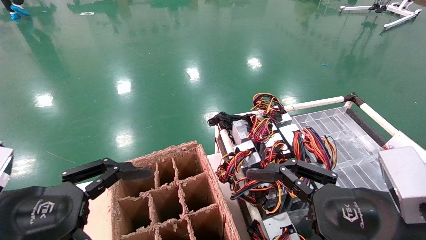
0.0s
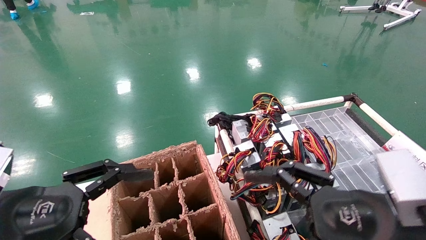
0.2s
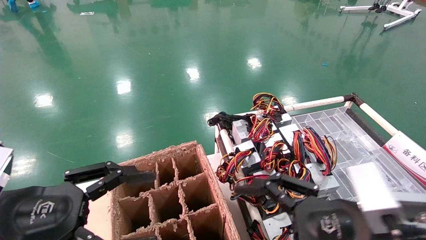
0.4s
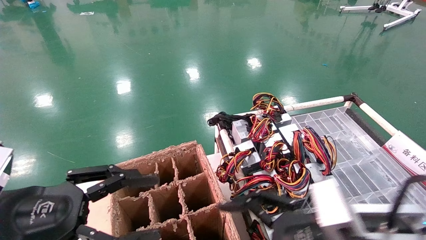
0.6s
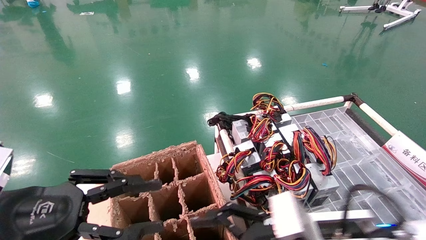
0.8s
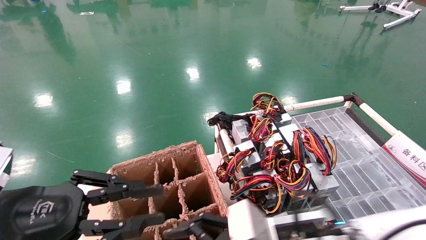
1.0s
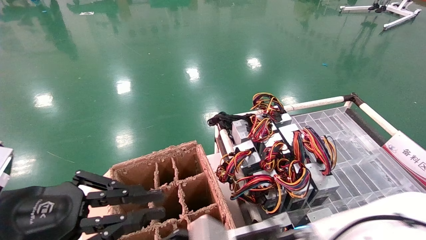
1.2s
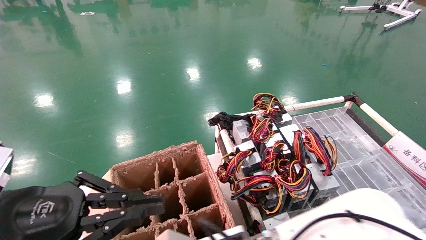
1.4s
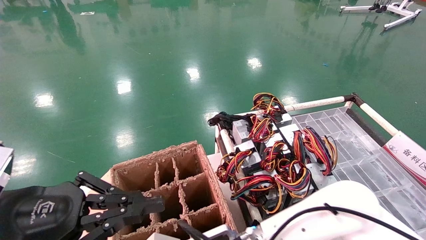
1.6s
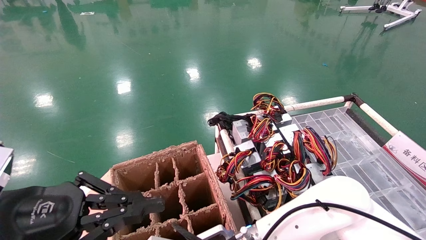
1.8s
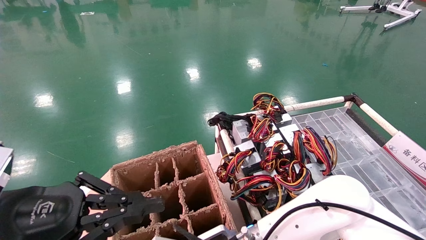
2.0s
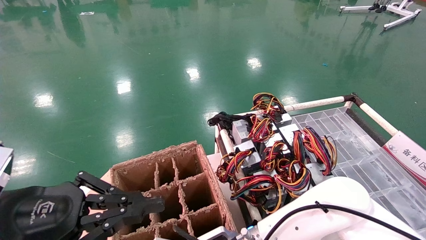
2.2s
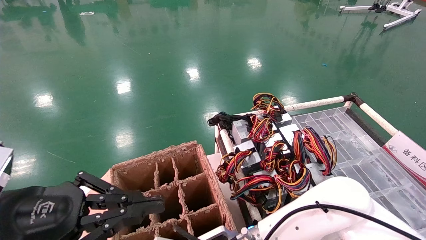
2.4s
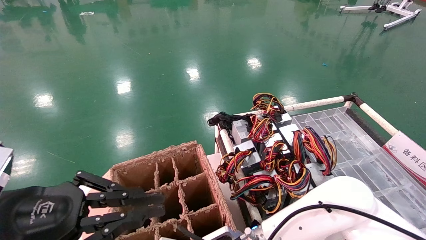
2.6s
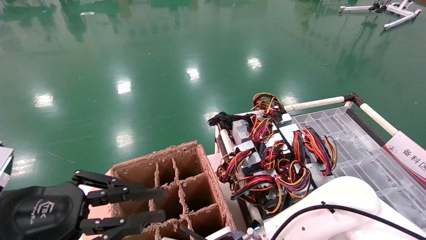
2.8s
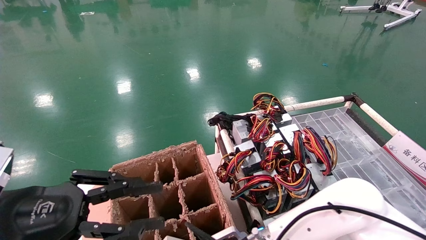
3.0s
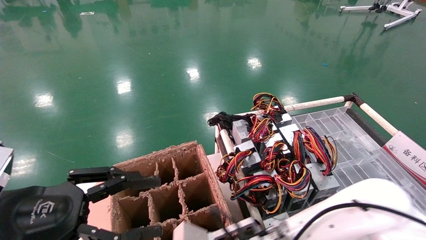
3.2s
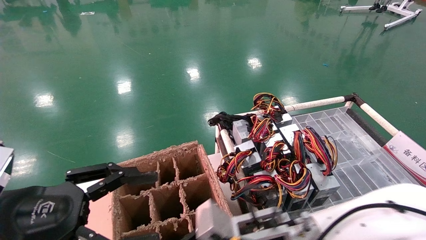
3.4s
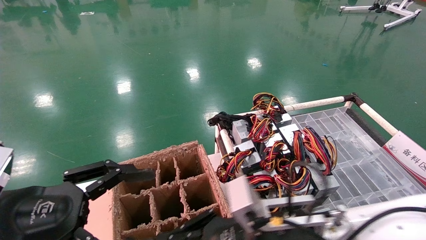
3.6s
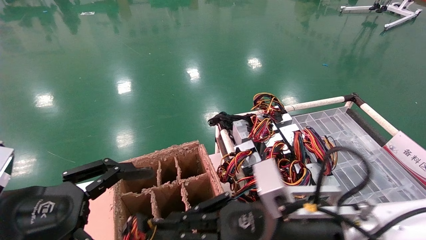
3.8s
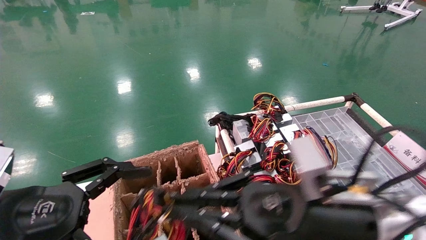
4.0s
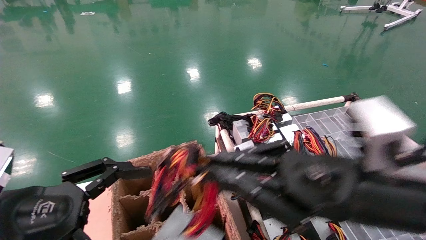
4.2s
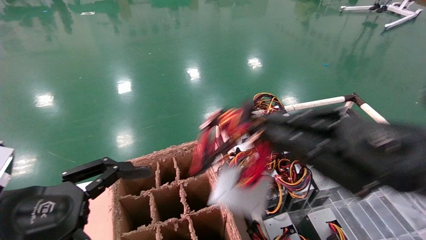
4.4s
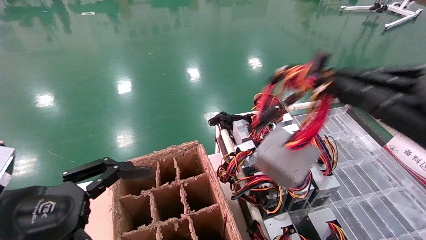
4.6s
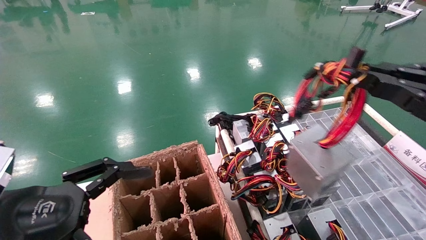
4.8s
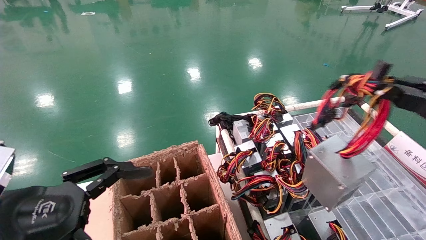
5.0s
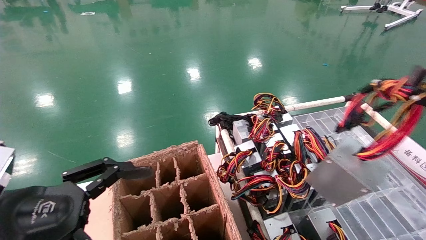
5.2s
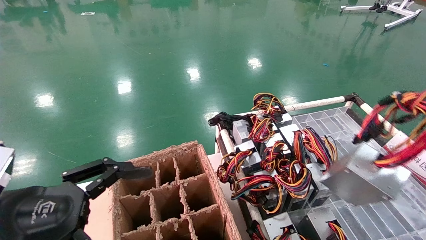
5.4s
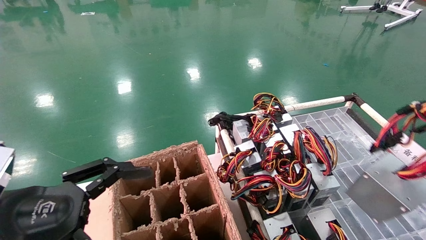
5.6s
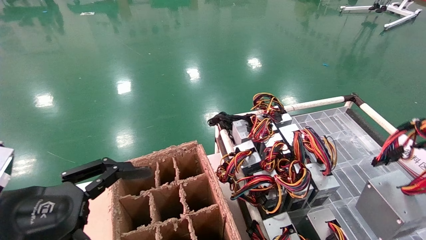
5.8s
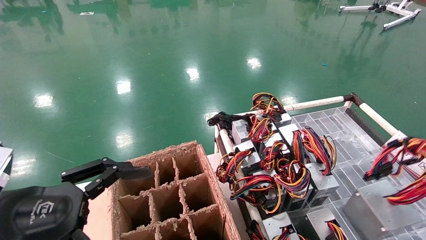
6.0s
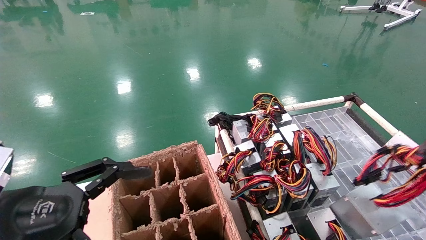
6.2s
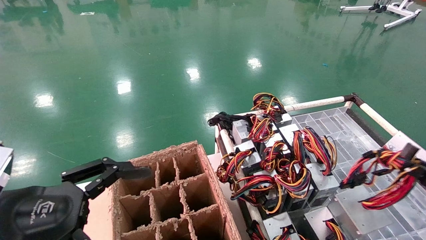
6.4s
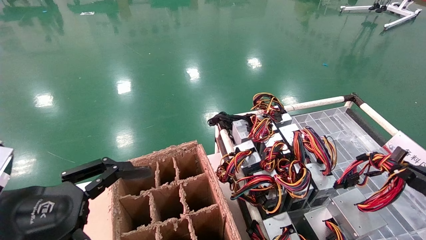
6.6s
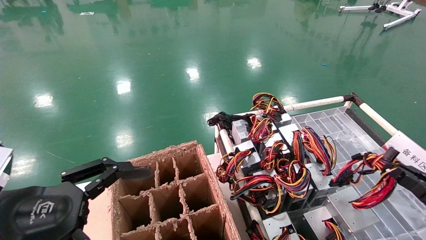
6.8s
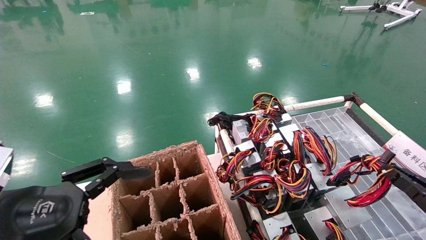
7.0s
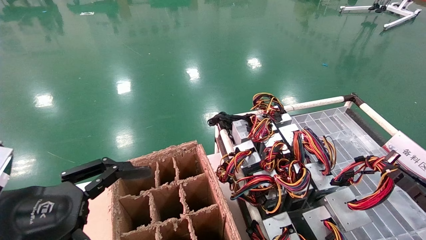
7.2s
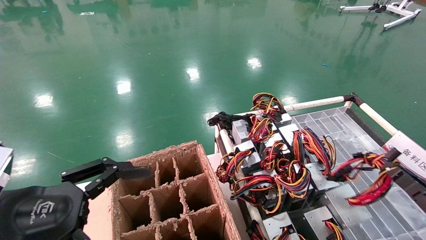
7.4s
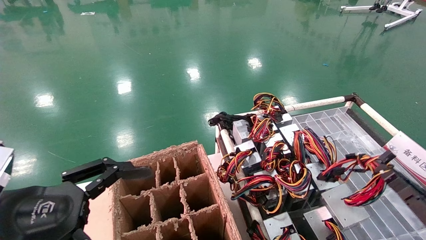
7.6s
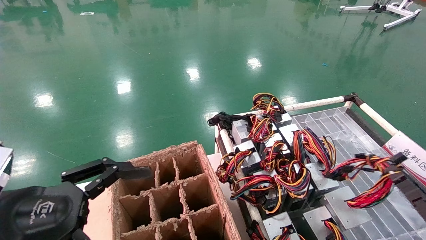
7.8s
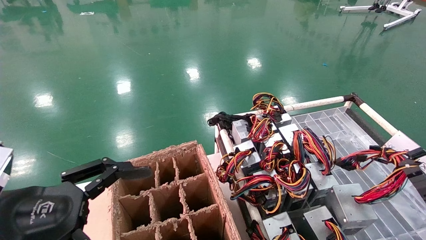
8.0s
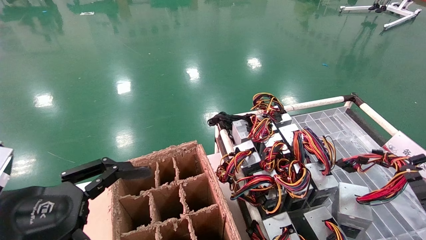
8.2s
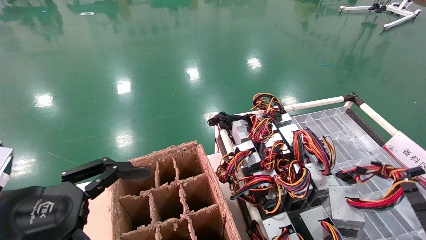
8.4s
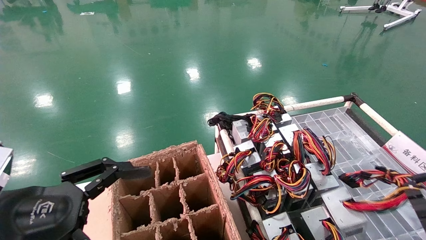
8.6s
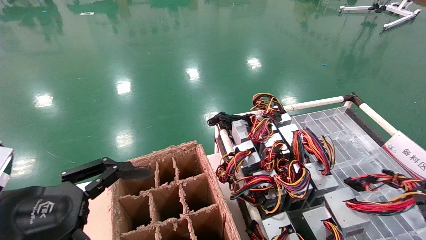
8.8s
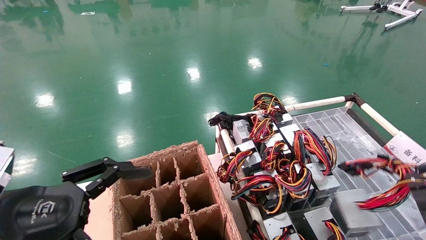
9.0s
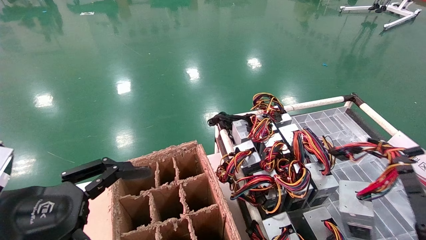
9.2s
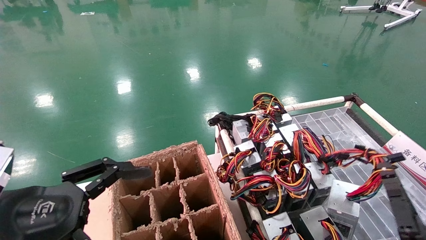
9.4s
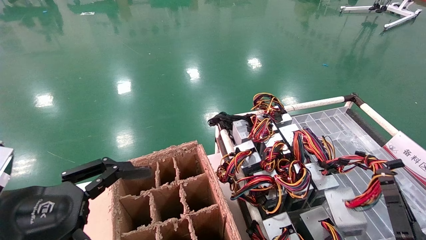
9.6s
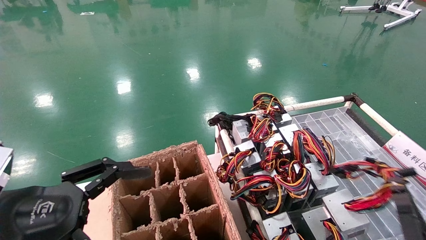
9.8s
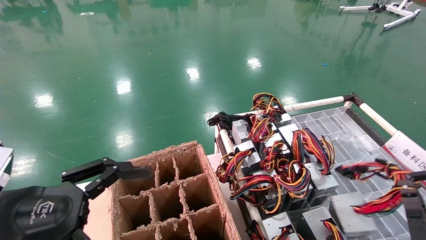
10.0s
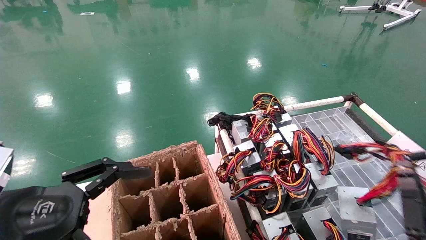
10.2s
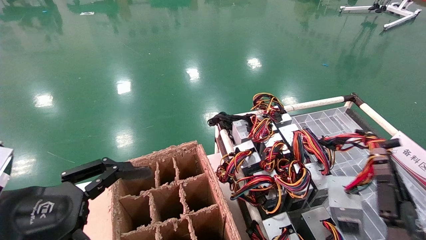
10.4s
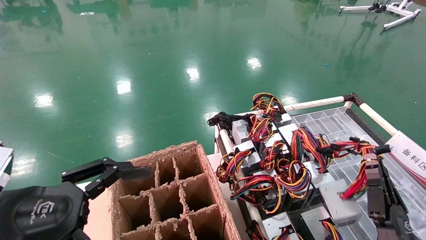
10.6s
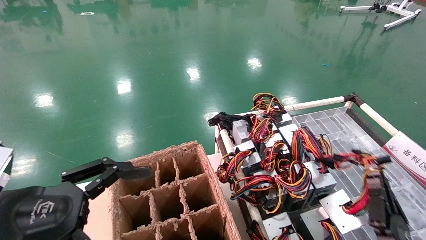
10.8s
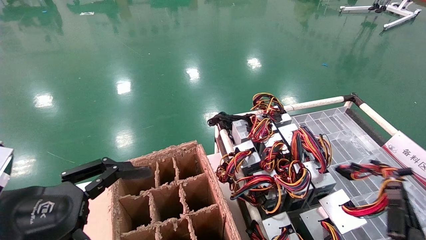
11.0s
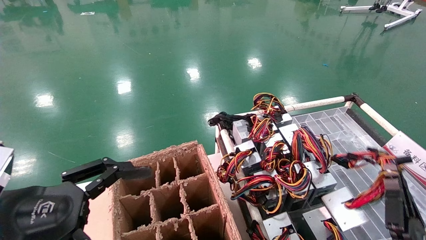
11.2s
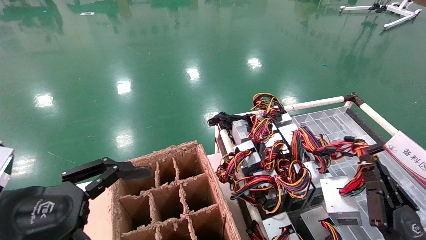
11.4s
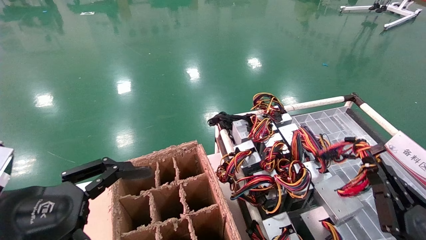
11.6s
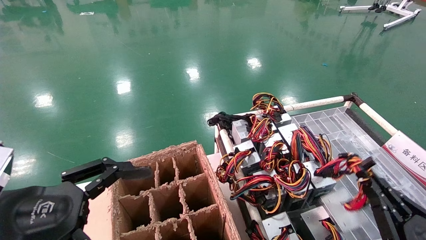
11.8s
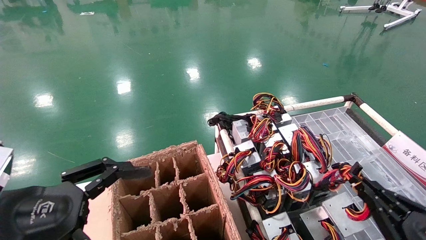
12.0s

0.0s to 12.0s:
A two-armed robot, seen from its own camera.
Step, 0.6s to 3.2s: Grab and lift the power supply from the large box.
0.0s to 1.6s: The right gripper travels to the left, downward and forward by about 25 cm. Meanwhile the left gripper closes.
1.6s to 3.0s: The right gripper closes up.
3.0s to 4.4s: The right gripper is displaced to the right and upward by approximately 30 cm, while the left gripper opens up.
4.4s to 6.0s: The right gripper is displaced to the right by approximately 20 cm.
6.0s to 7.6s: The right gripper heads downward and forward, covering approximately 15 cm.
7.6s to 9.0s: The right gripper travels downward and to the left by about 10 cm.
9.0s to 10.4s: The right gripper moves to the left, about 5 cm.
10.4s to 12.0s: The right gripper heads to the right, covering some 10 cm.

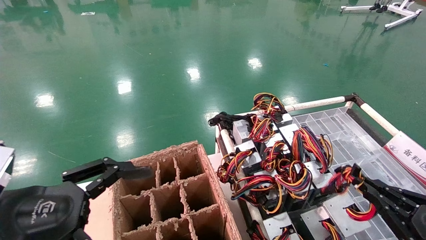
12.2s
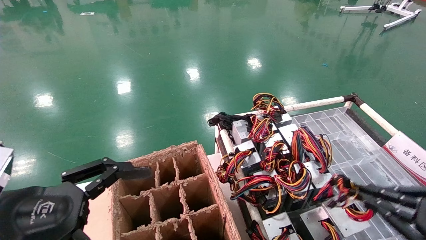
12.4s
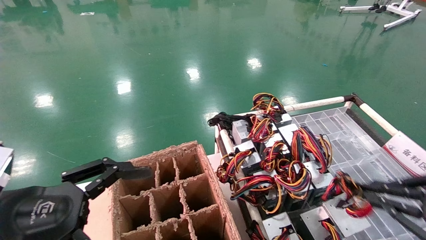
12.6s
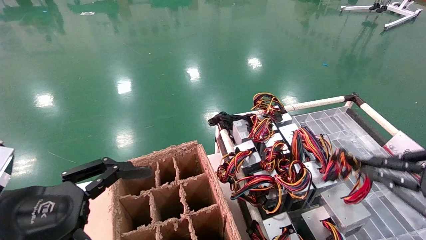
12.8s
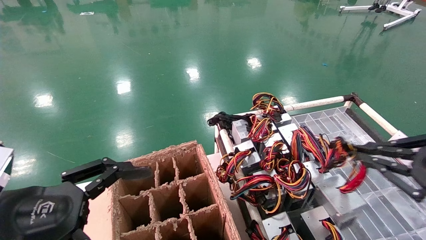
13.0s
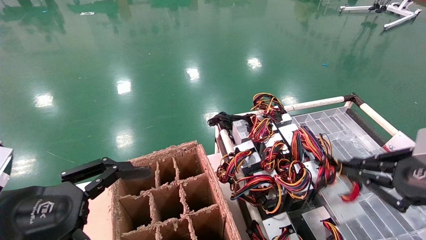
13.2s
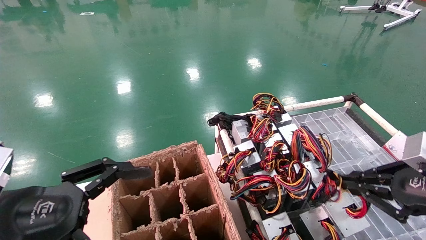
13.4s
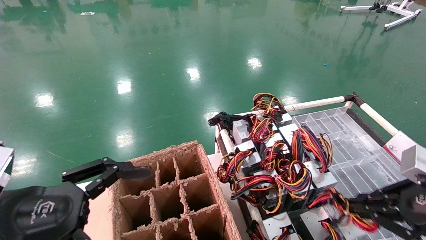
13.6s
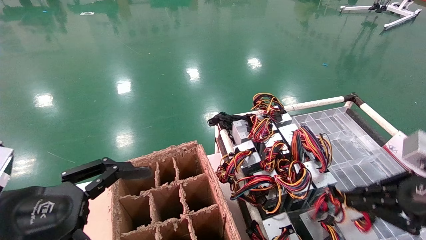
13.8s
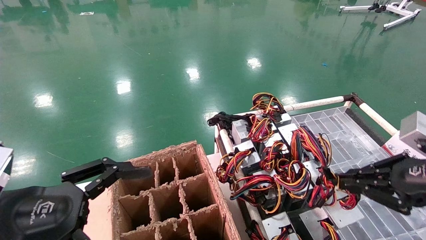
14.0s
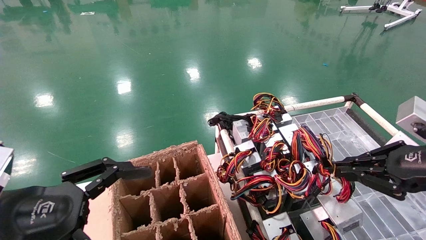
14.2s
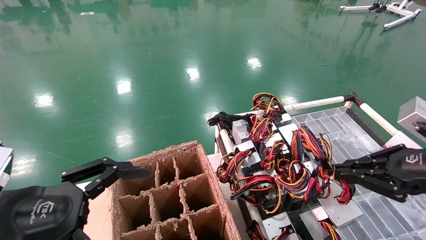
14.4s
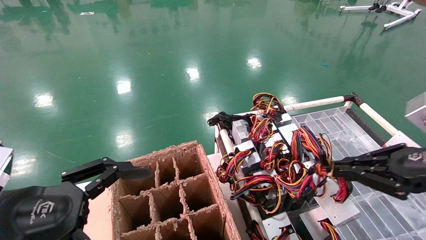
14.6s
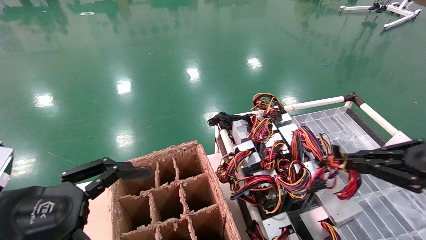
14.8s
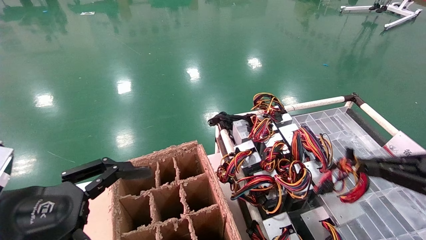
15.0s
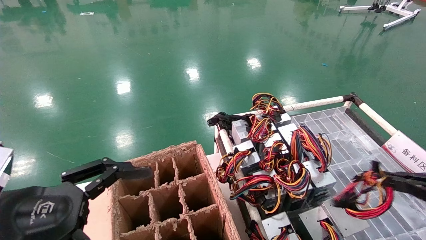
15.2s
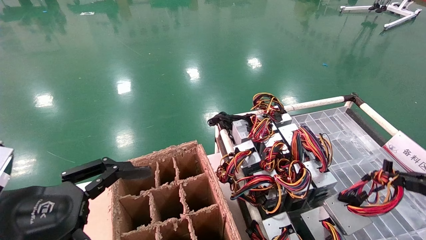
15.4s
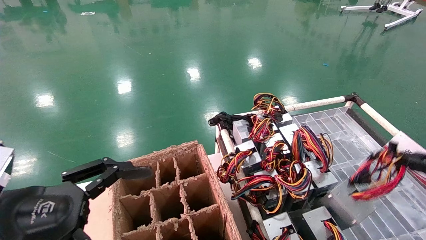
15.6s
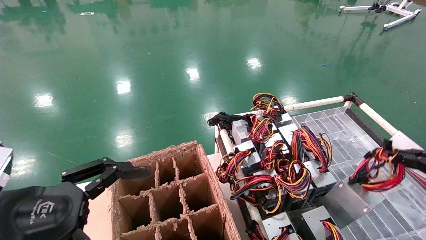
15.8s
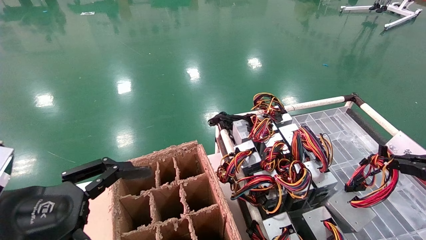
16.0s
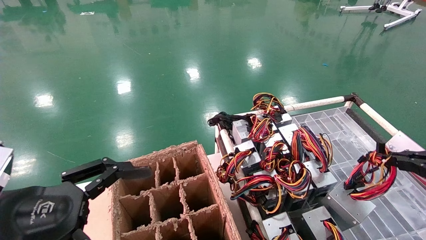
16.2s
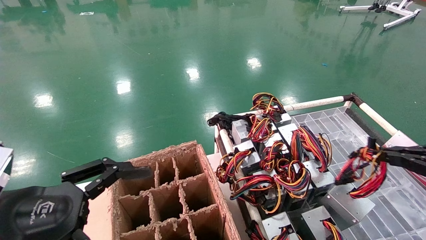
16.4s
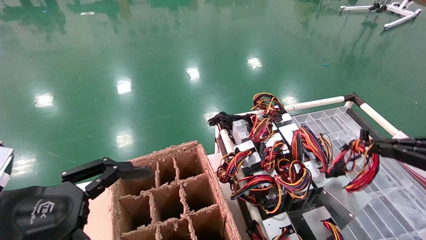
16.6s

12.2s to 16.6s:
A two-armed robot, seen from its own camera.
12.2s to 13.6s: The right gripper goes approximately 15 cm upward.
13.6s to 15.2s: The right gripper travels to the right by some 10 cm.
15.2s to 16.6s: The grippers make only small movements.
